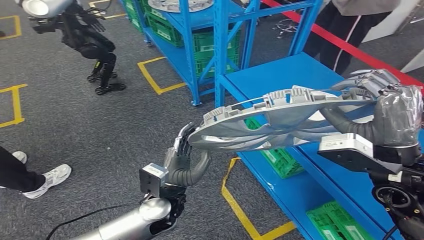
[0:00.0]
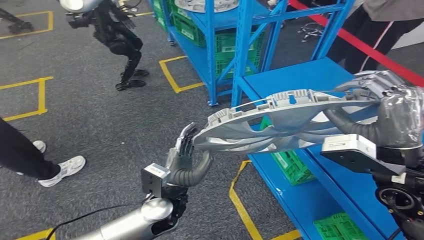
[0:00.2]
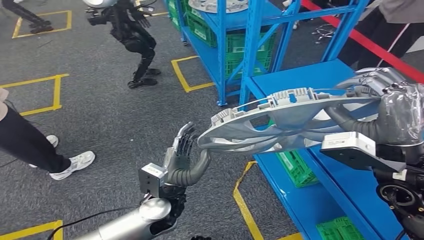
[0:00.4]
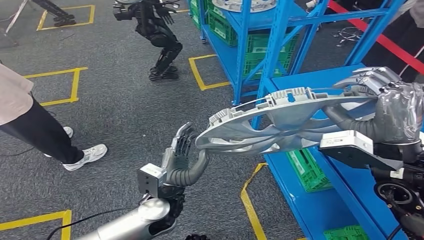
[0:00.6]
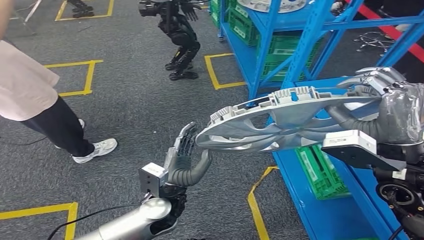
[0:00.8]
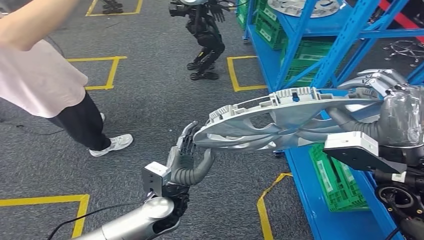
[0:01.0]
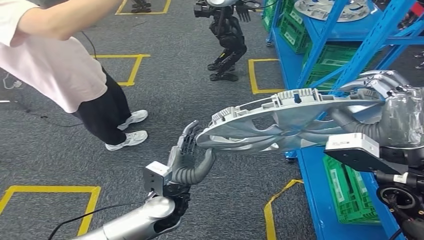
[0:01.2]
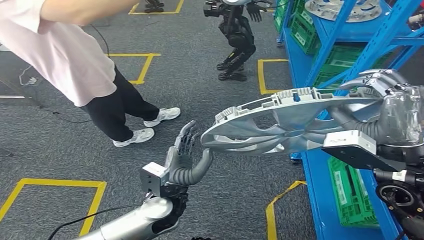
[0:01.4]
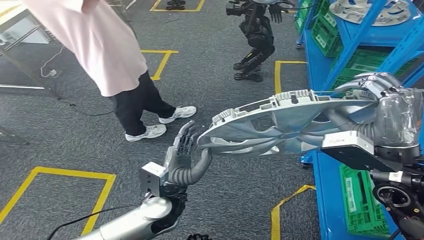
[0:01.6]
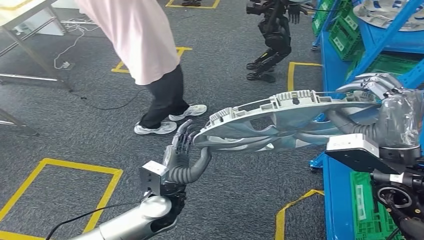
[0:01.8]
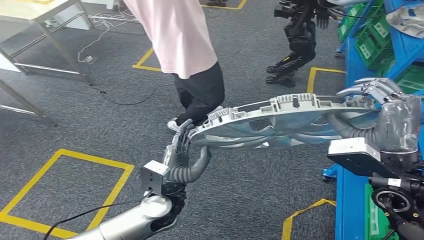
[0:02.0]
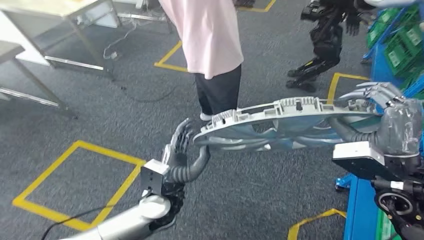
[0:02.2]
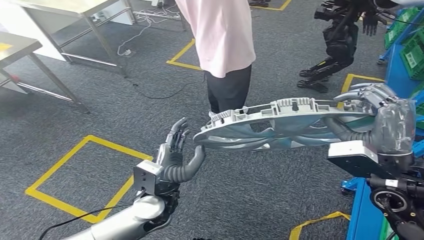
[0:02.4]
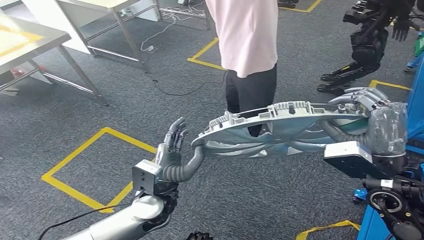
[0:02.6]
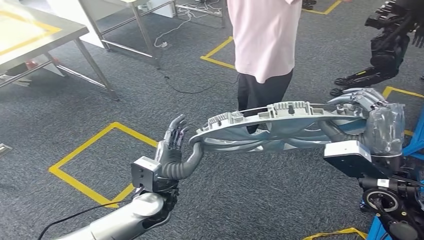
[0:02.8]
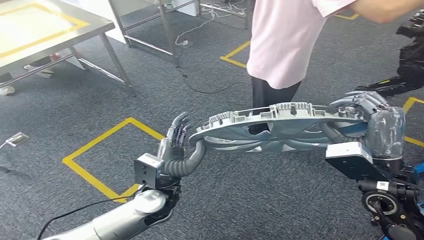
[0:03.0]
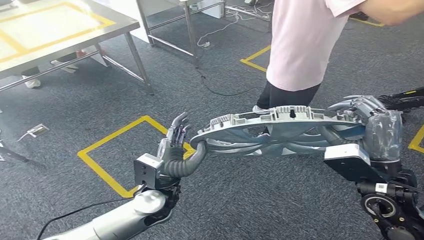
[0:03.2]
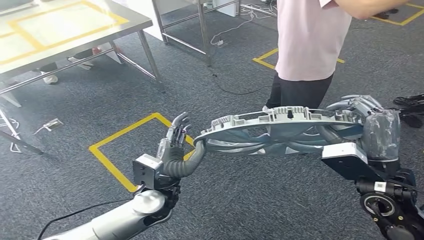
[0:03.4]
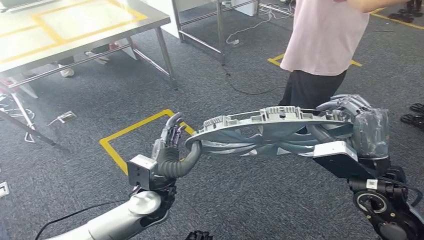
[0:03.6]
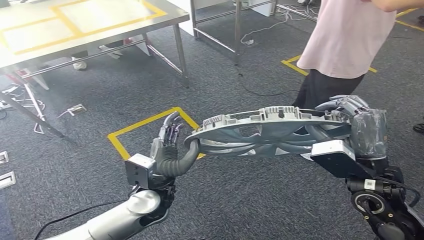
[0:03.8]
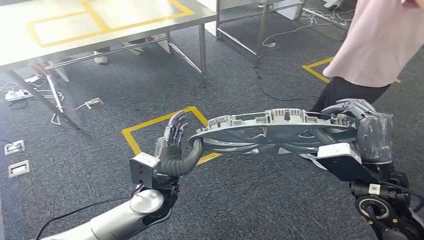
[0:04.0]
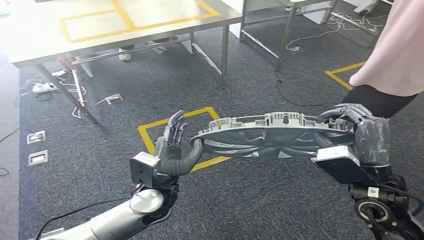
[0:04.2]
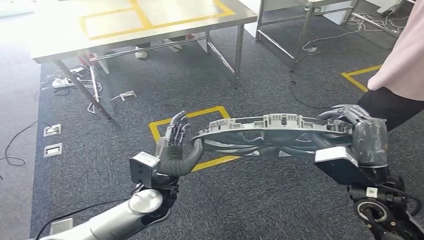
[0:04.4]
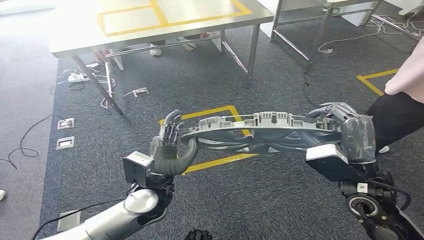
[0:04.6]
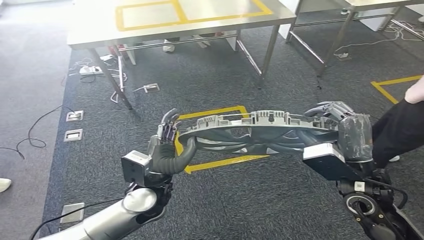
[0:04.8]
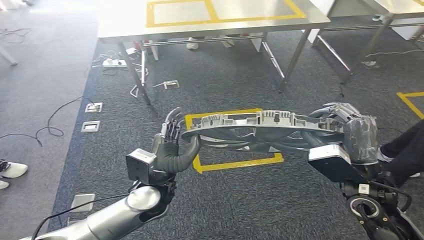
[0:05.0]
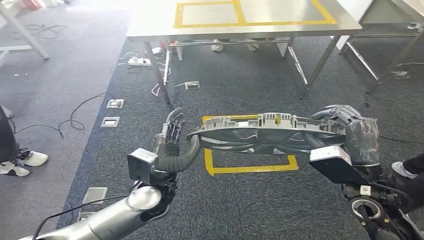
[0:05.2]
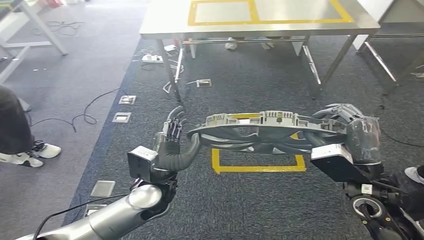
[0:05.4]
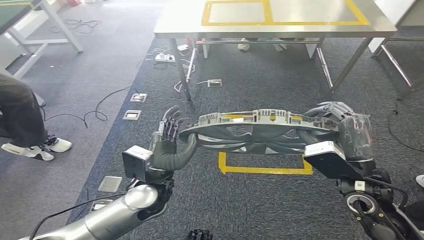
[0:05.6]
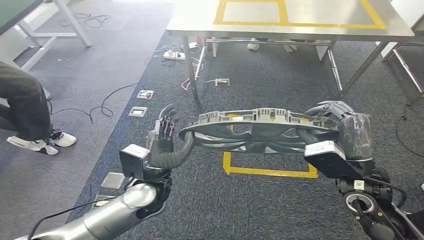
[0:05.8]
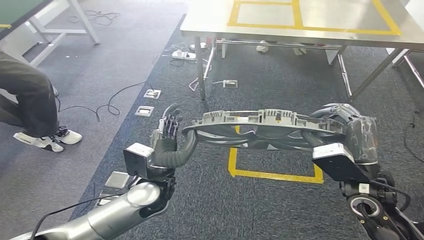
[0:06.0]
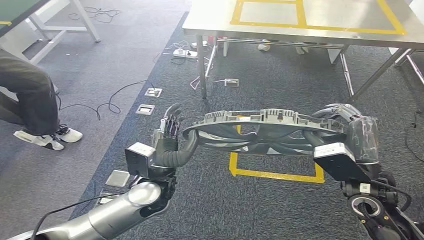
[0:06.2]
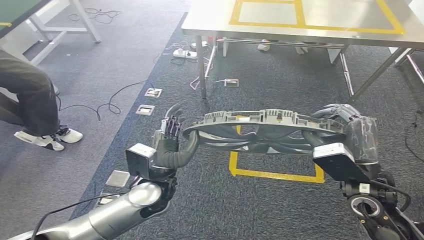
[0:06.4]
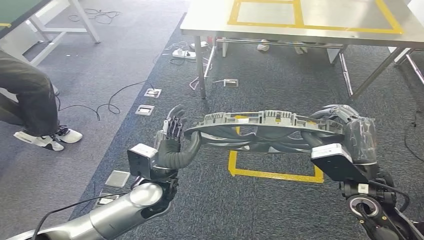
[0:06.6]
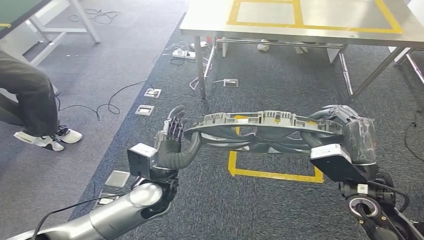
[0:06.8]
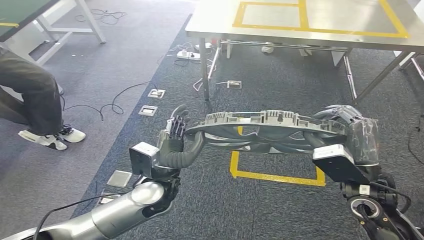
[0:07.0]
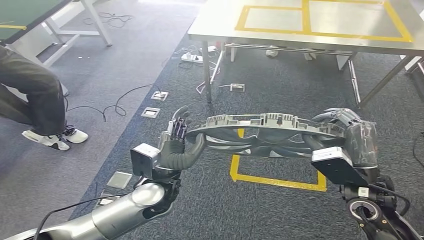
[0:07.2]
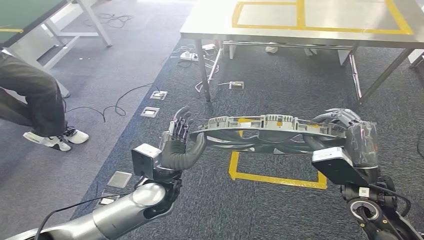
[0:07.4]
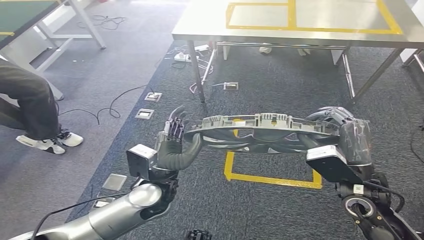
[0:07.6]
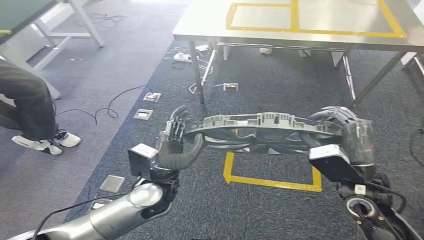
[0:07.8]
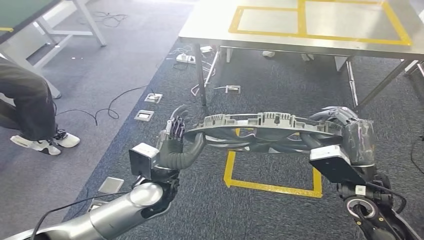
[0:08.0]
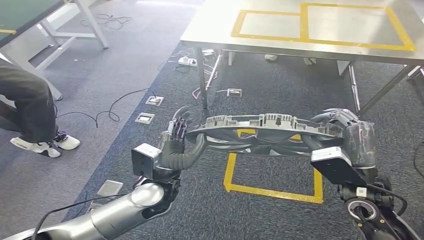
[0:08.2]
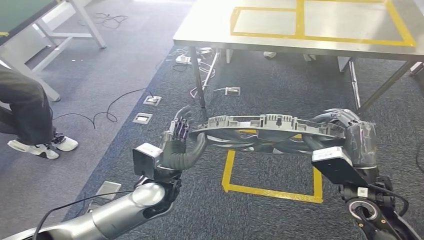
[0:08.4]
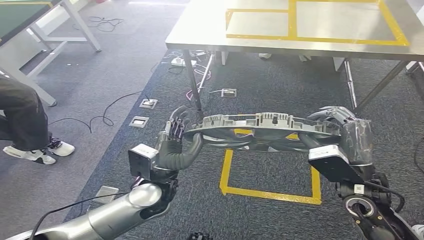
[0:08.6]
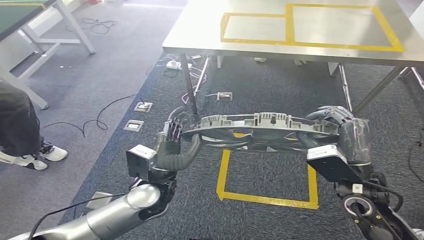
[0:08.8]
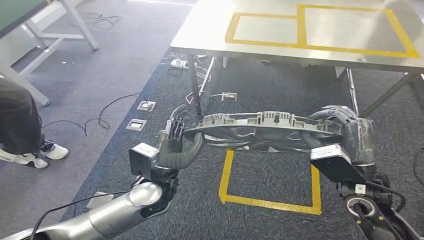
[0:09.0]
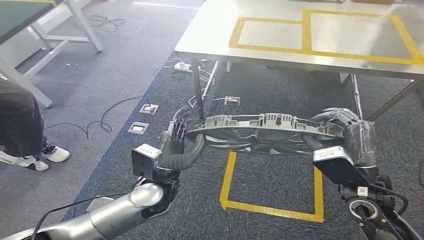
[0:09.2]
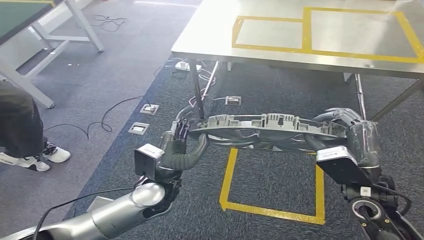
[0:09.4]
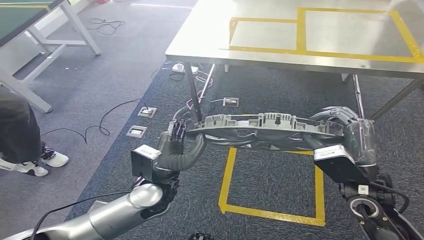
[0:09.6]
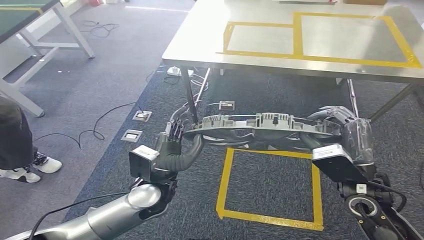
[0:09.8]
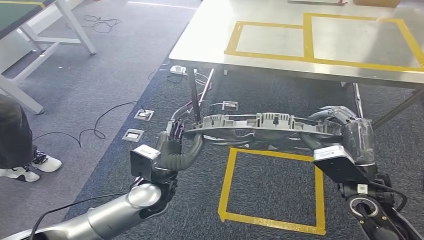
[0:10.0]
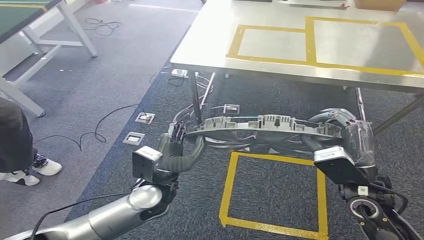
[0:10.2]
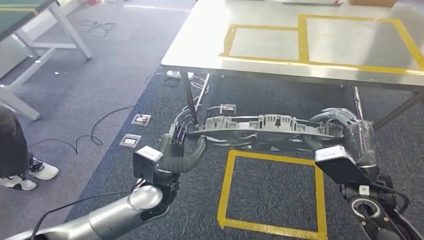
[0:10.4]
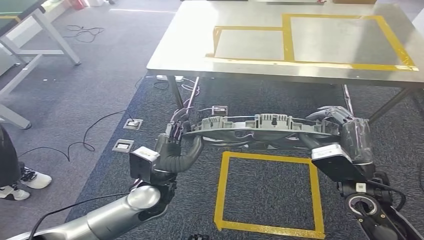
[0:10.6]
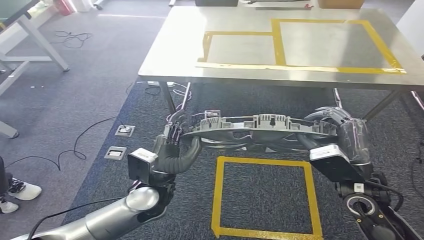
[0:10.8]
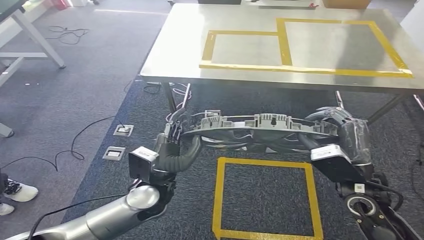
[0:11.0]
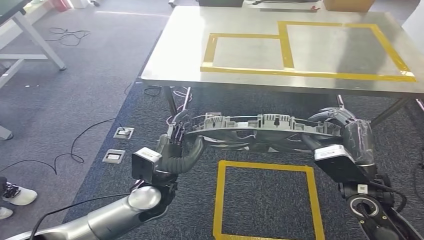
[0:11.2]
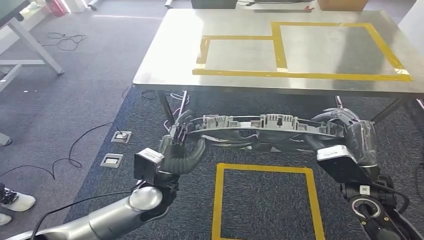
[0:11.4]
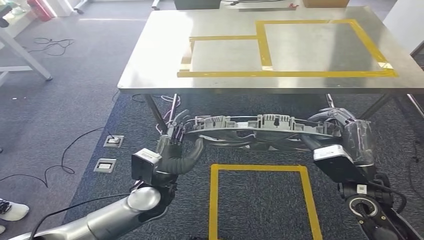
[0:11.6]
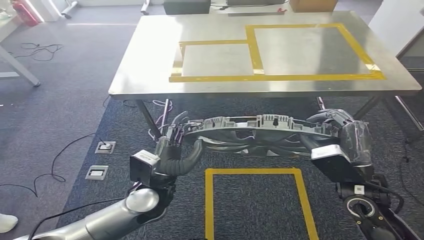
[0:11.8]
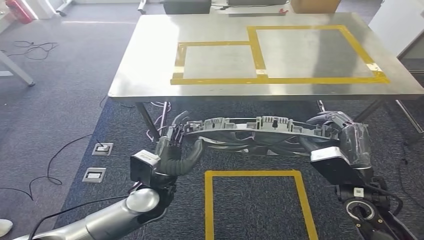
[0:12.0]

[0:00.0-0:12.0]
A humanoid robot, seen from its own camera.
0:06.0 to 0:07.6: Both hands stay about where they are.

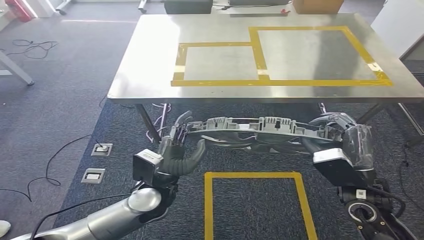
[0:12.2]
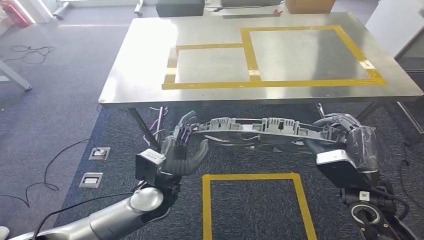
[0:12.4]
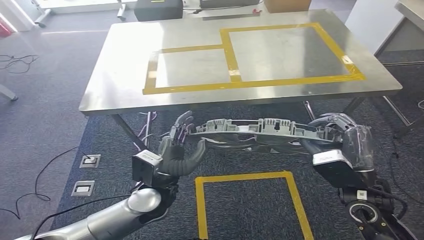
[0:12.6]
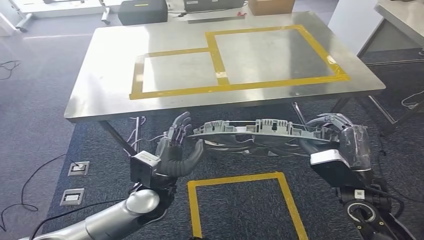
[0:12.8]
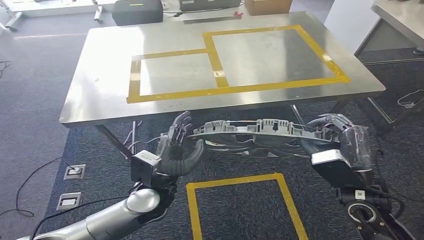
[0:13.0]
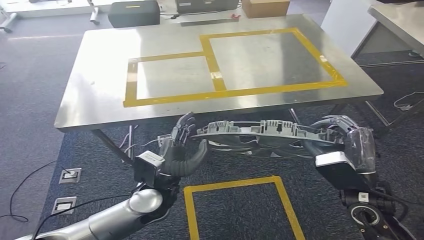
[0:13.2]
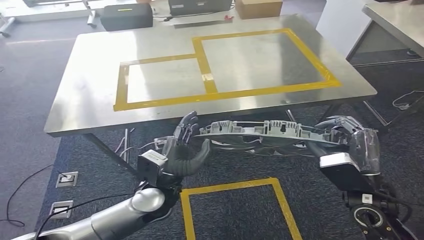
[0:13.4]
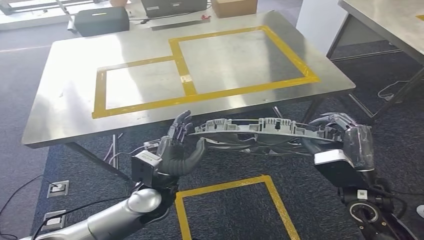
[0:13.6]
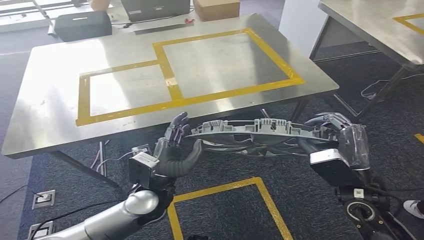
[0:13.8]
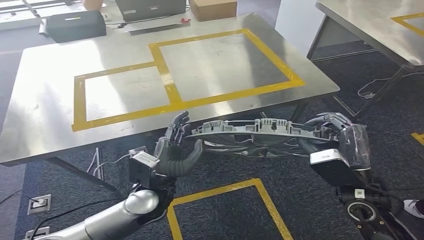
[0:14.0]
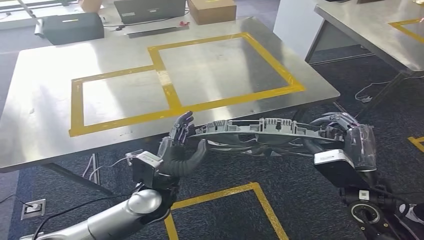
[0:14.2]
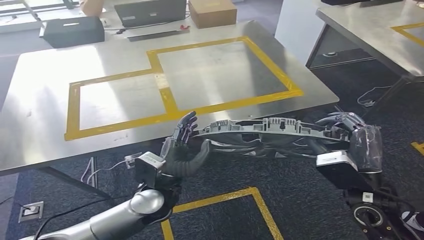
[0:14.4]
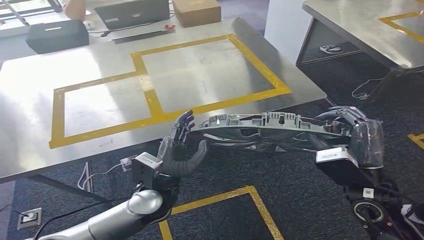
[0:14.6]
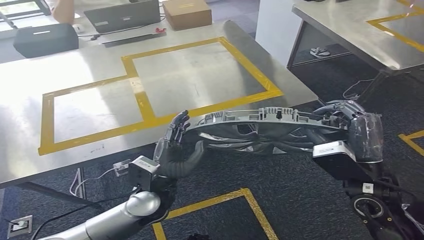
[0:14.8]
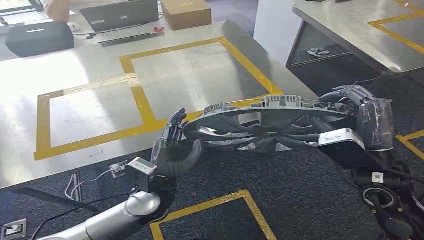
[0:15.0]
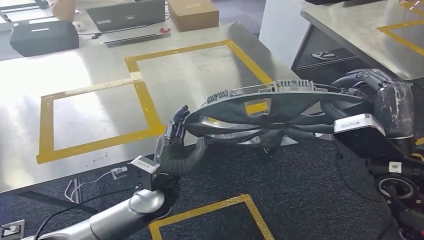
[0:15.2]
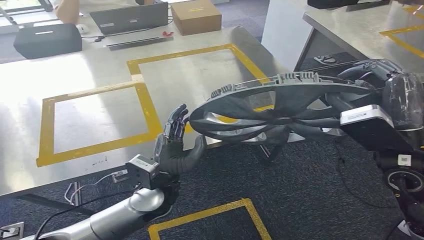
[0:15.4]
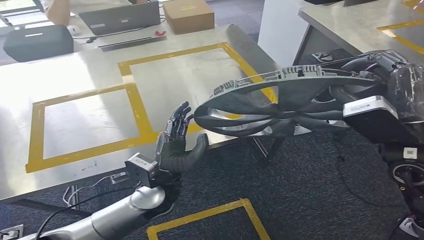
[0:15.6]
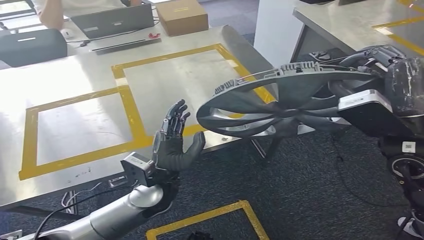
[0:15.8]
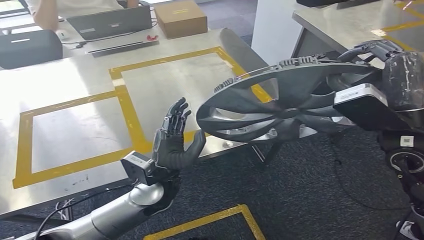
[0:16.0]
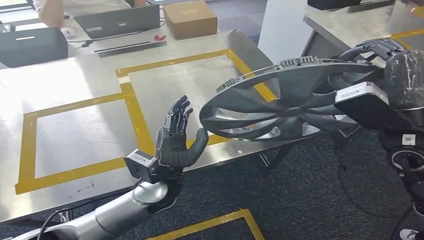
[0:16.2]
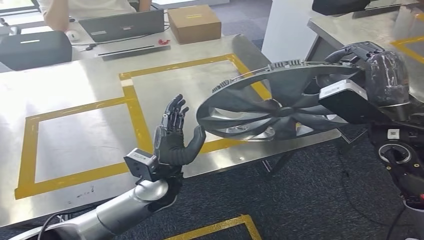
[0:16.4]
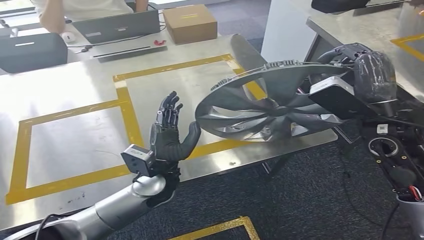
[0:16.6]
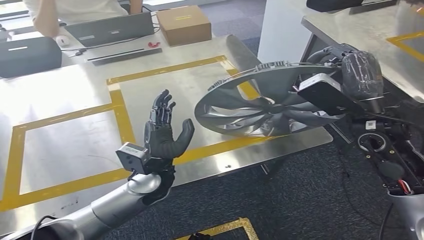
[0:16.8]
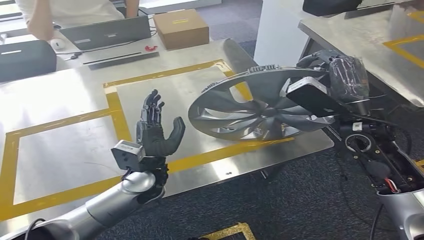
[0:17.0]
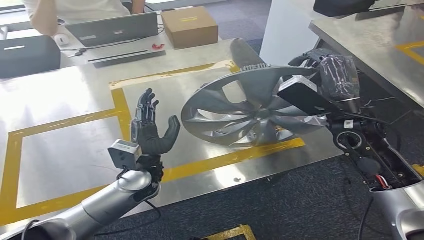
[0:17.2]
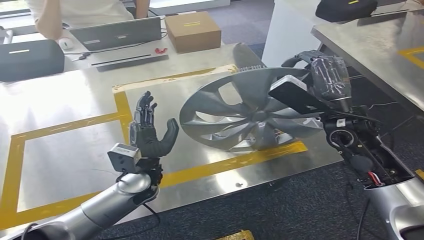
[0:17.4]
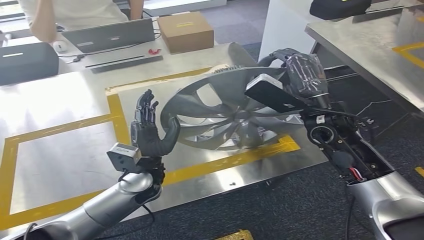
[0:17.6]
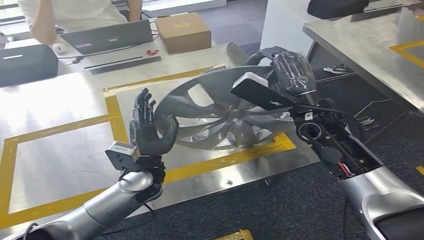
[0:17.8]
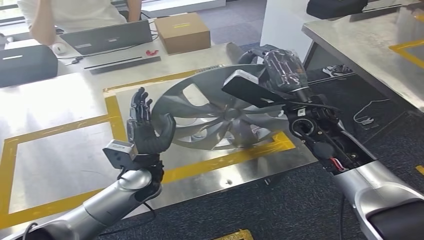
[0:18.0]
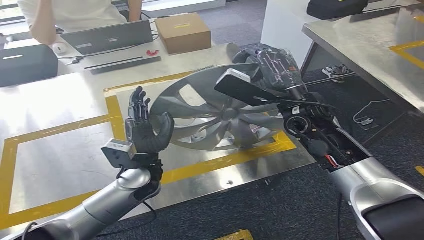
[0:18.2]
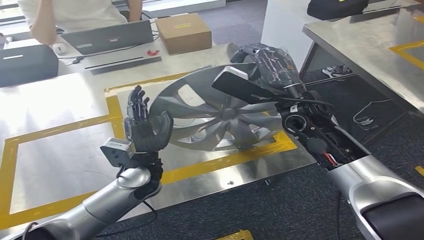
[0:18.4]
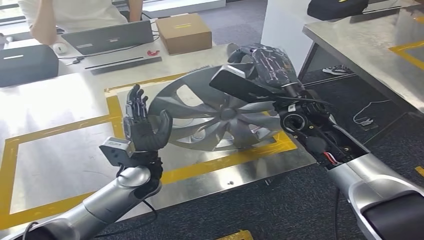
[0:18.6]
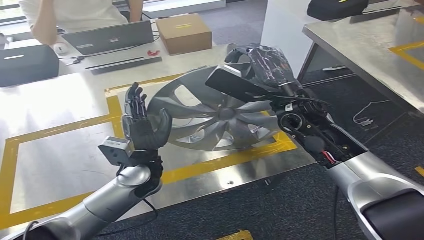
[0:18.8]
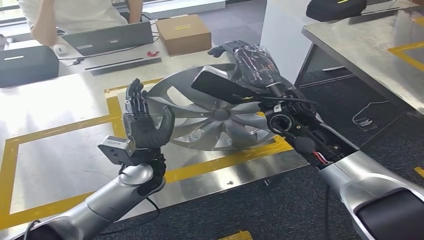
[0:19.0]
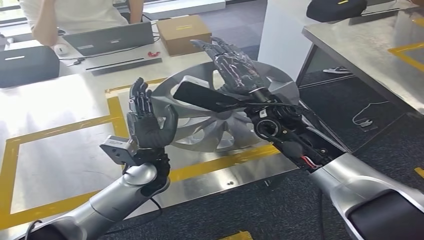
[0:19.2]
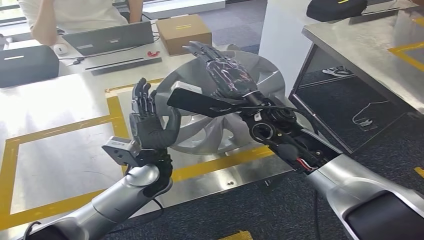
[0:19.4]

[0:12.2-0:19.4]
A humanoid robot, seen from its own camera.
Step, 0:12.2 to 0:17.4: Move the small component to the workbench.
